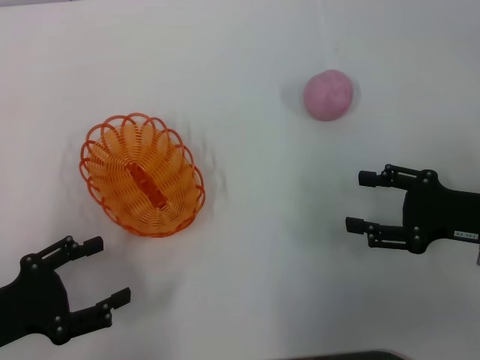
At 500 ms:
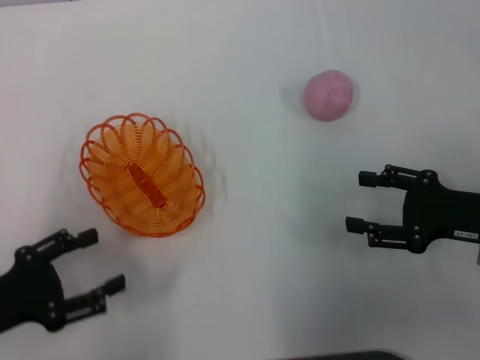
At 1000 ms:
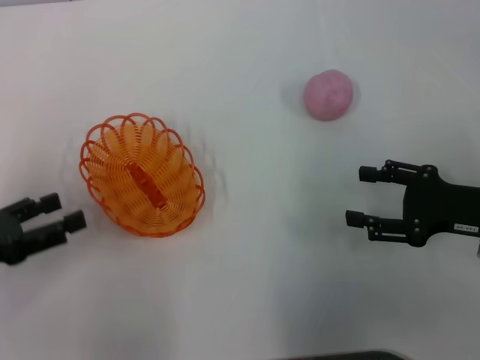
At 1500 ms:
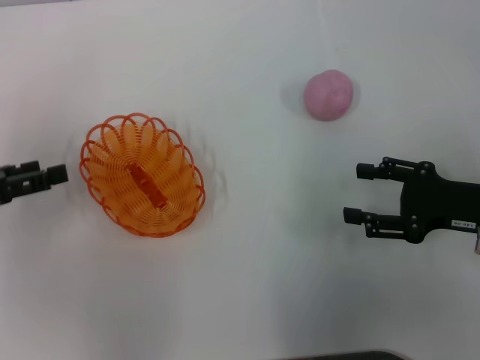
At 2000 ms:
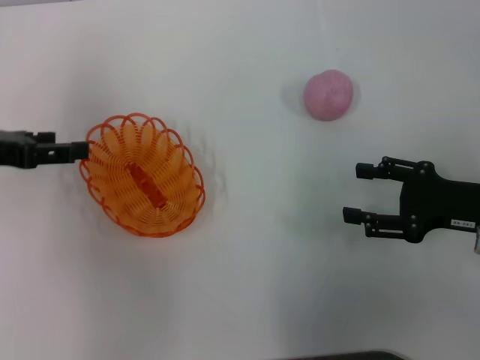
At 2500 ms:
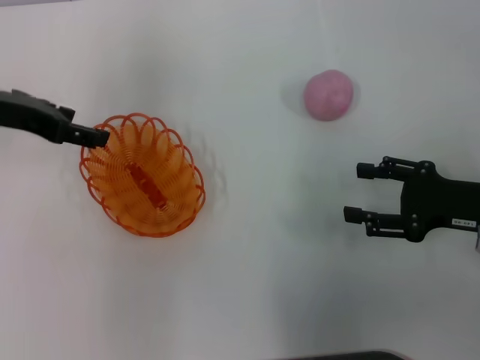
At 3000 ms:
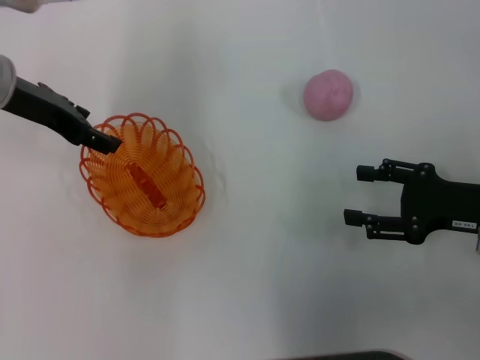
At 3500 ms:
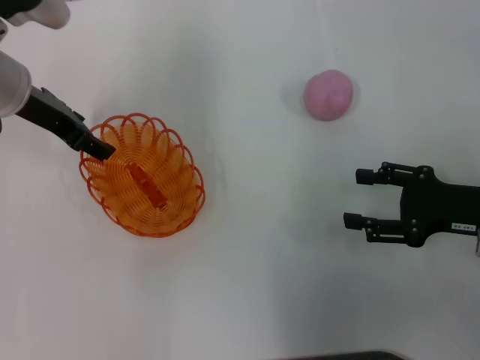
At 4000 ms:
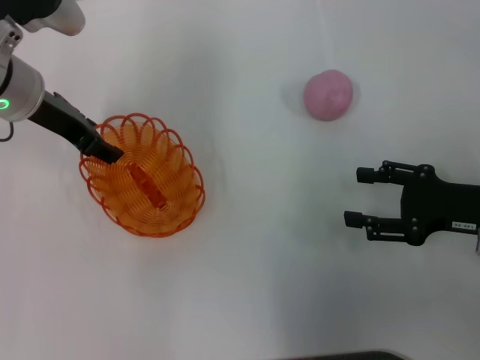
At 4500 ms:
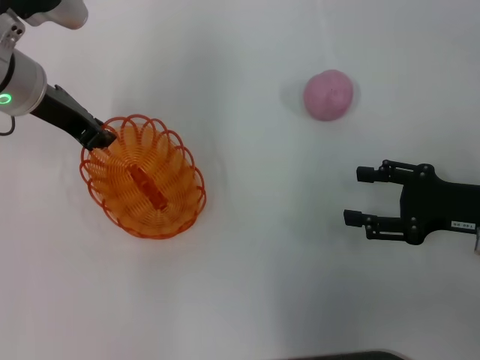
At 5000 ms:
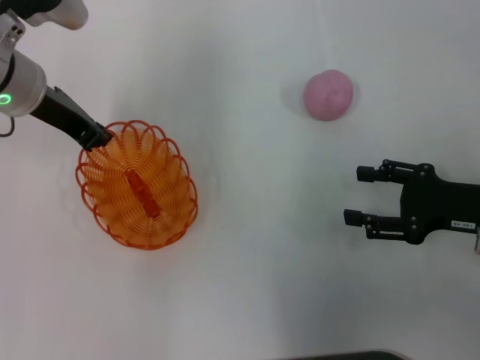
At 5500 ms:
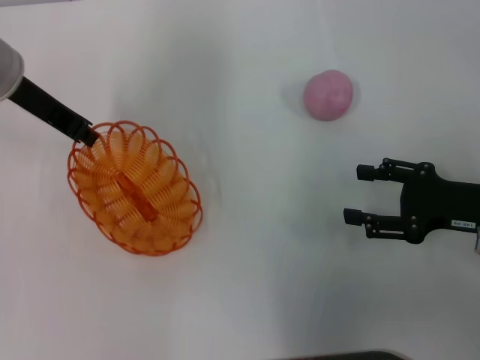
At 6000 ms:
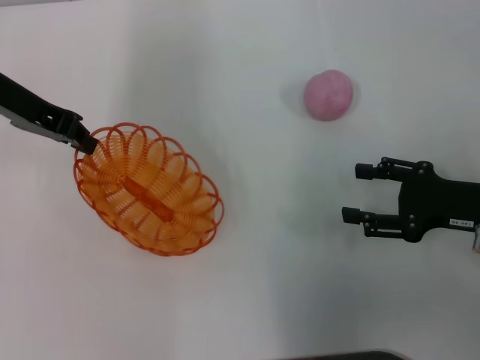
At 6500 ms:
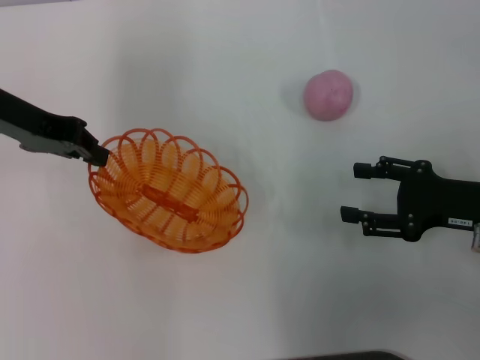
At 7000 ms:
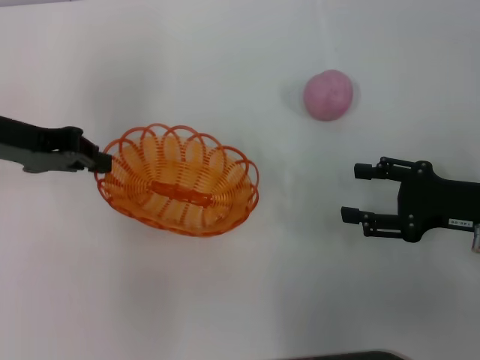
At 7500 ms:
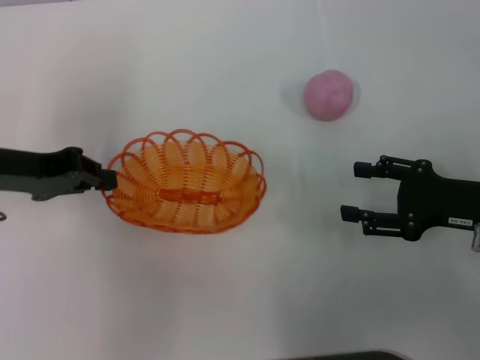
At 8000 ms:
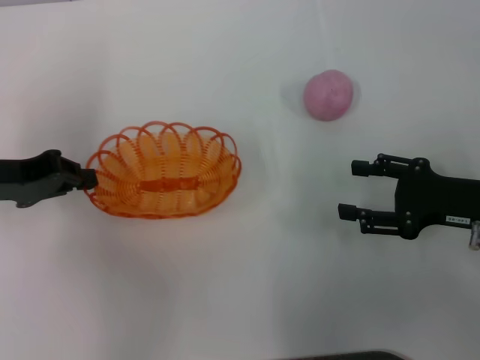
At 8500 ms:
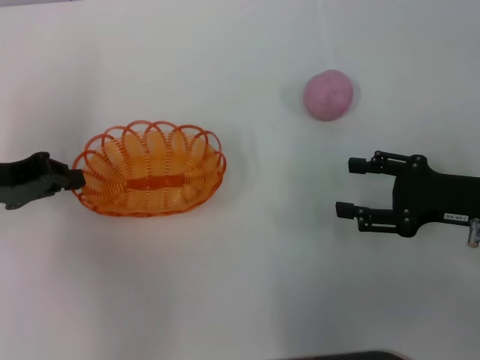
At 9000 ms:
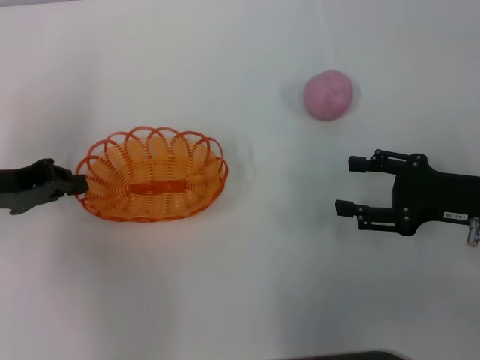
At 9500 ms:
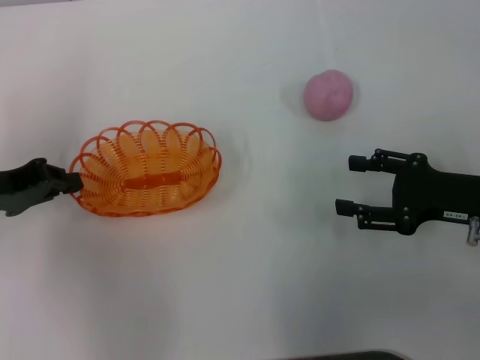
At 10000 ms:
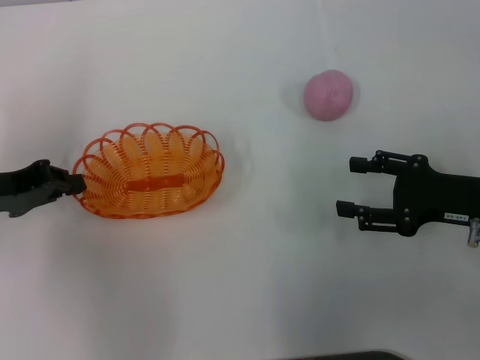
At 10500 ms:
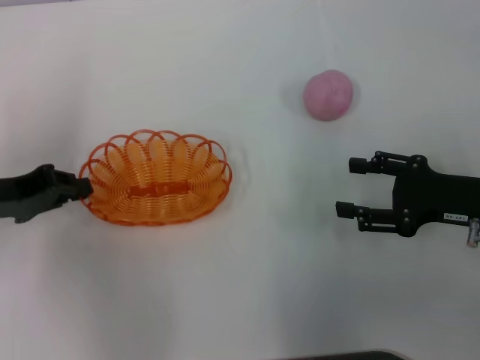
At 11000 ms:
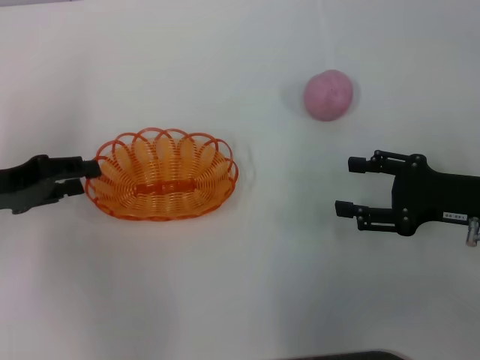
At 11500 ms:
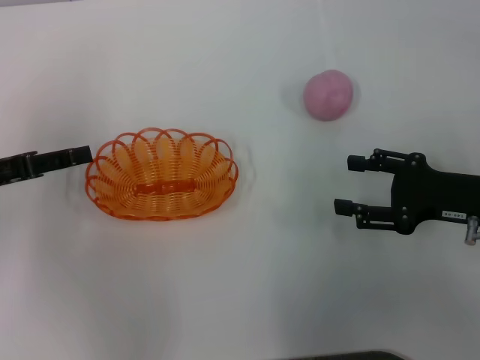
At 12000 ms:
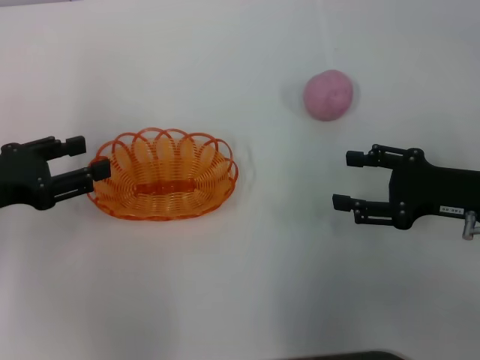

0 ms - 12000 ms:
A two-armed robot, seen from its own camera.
Step, 0 ms - 5500 ms: Pick up the basket with the left gripper.
Step, 6000 ms - 11000 ms: Place the basket in the center of view with the left gripper.
0 ms - 2000 ms: The left gripper is displaced forward and upward by roughly 20 cm.
2000 ms - 4000 ms: The left gripper is displaced to the right and forward by some 15 cm.
4000 ms - 6000 ms: The left gripper shifts by roughly 5 cm, and closes up.
6000 ms - 8000 ms: The left gripper goes roughly 10 cm backward, downward and to the left.
8000 ms - 10000 ms: There are only small adjustments of the grippers.
10000 ms - 12000 ms: The left gripper opens up.

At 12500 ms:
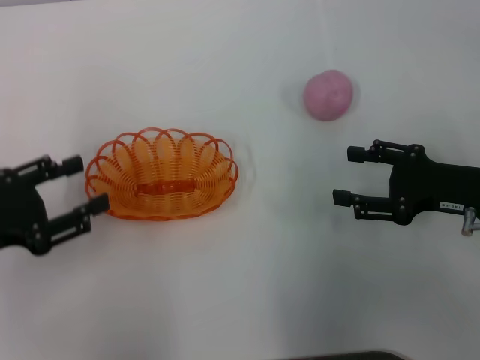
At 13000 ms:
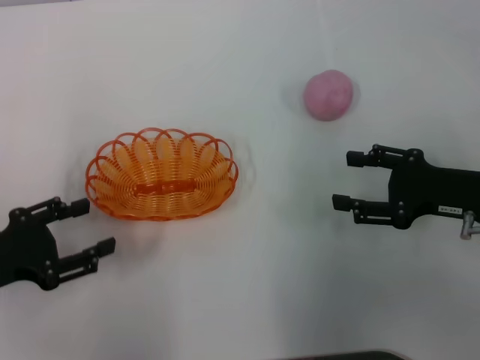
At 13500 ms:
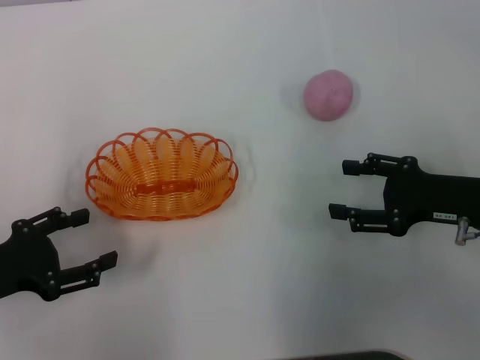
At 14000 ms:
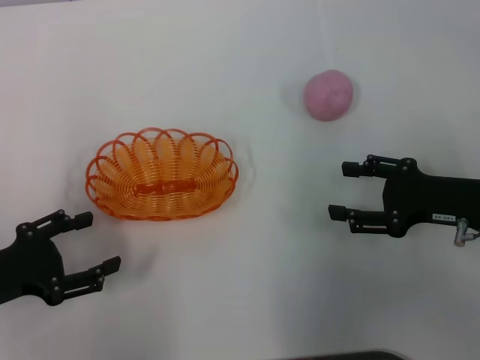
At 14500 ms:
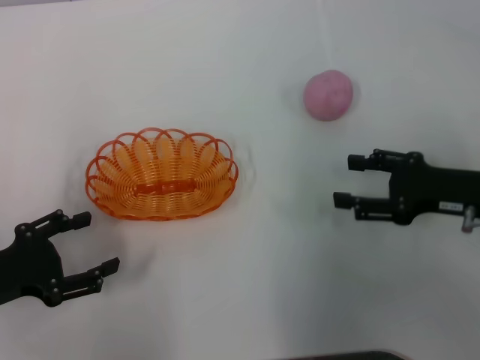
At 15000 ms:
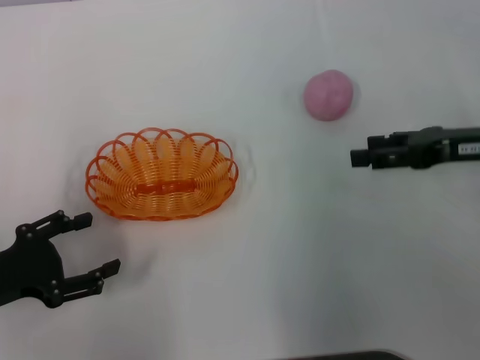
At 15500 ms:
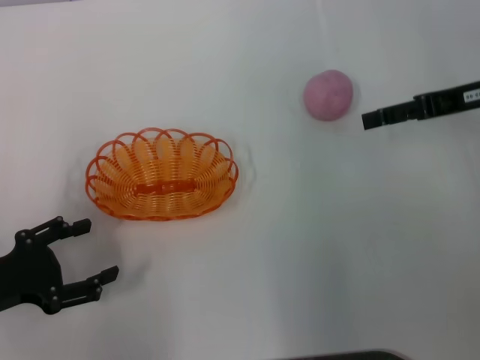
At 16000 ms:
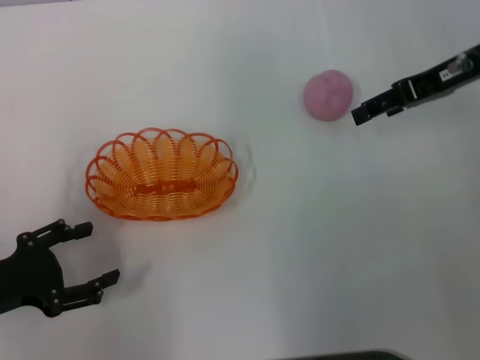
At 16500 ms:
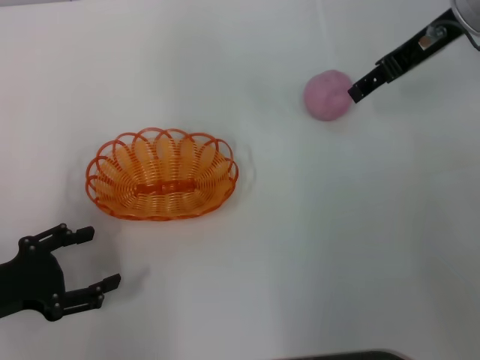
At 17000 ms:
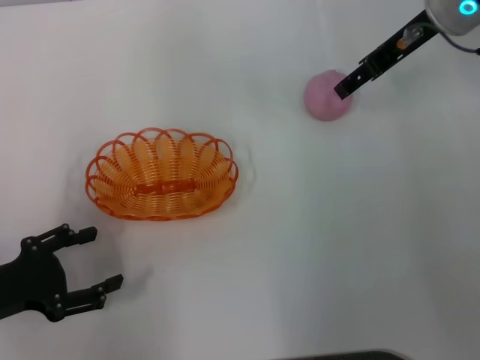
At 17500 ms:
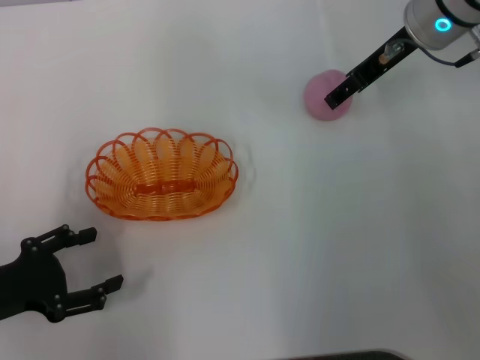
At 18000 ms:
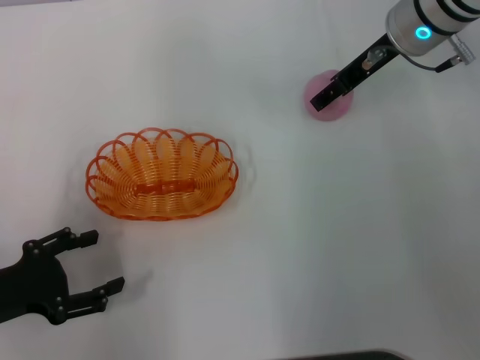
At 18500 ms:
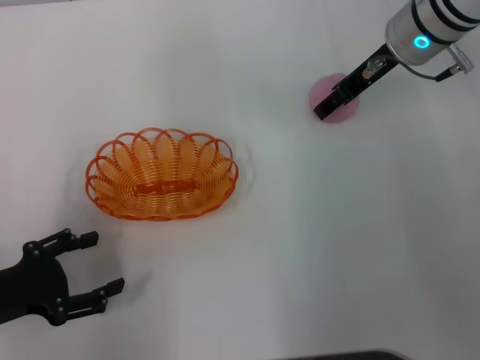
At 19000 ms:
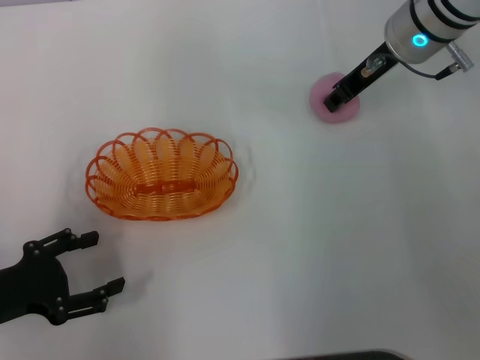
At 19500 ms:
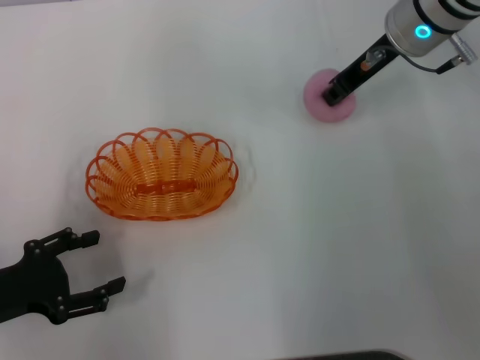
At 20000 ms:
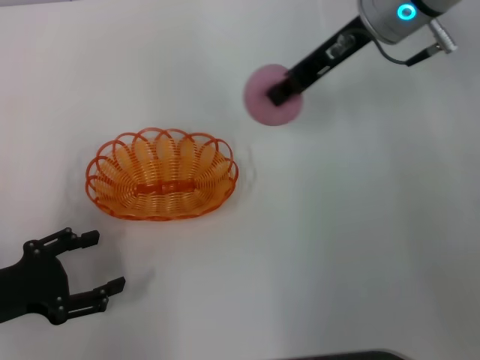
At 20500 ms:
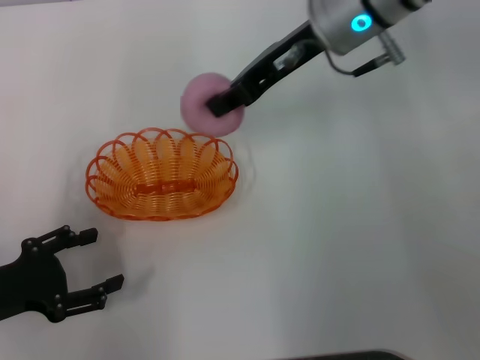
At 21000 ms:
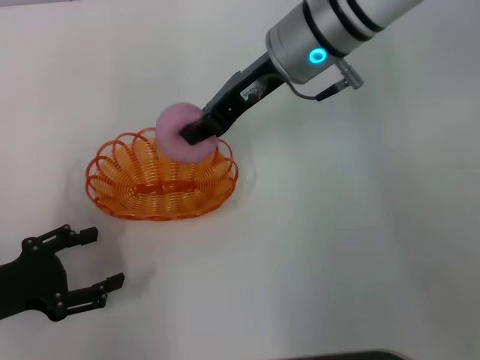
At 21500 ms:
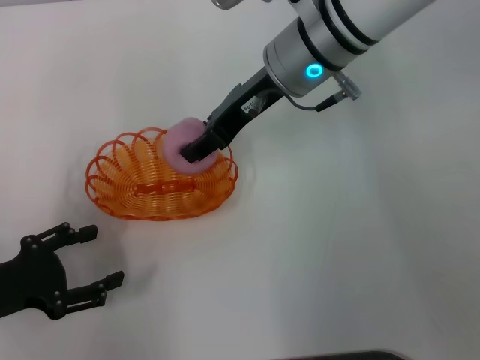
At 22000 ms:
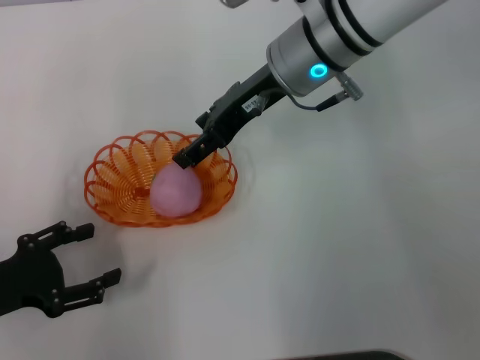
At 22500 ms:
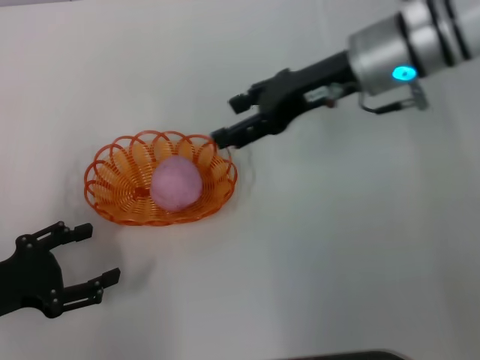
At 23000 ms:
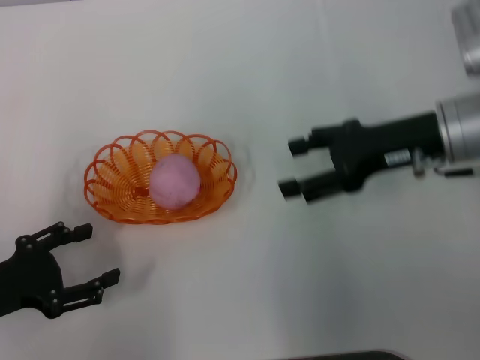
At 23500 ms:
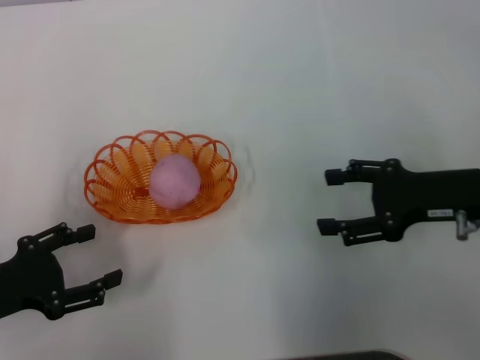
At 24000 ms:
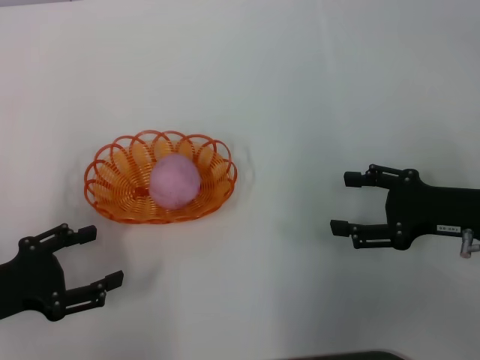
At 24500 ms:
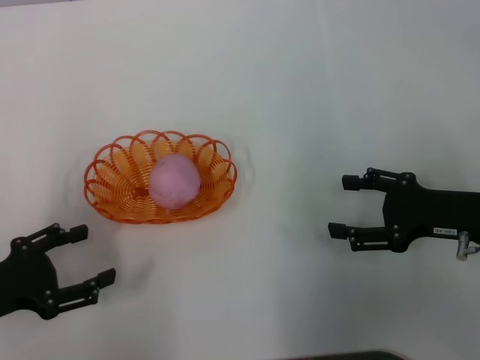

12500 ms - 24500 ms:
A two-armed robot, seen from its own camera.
Step, 12500 ms - 19500 ms: Pick up the peach with the right gripper.
Step, 20000 ms - 22500 ms: Place the peach into the basket with the right gripper.
12500 ms - 14500 ms: There are only small adjustments of the grippers.
14500 ms - 16500 ms: The right gripper shifts about 20 cm upward, forward and to the left.
16500 ms - 18500 ms: The right gripper goes roughly 5 cm downward.
18500 ms - 20500 ms: The right gripper is displaced to the left by about 5 cm, and closes its fingers.
20500 ms - 22500 ms: The right gripper moves approximately 5 cm, and opens up.
22500 ms - 24500 ms: The right gripper travels backward, to the right and downward by about 20 cm.

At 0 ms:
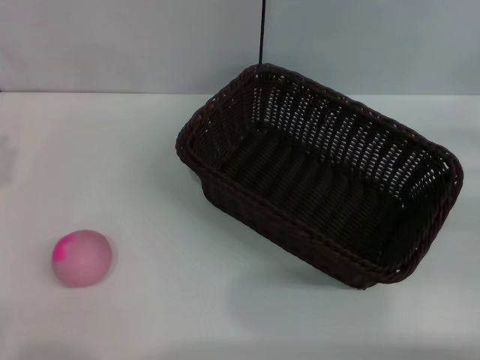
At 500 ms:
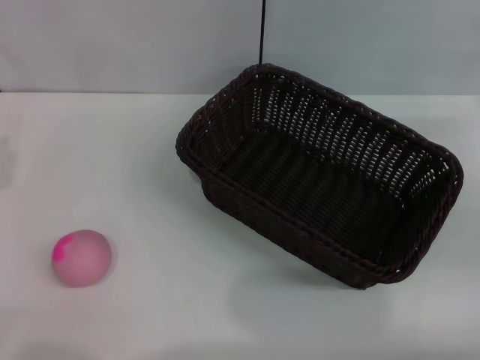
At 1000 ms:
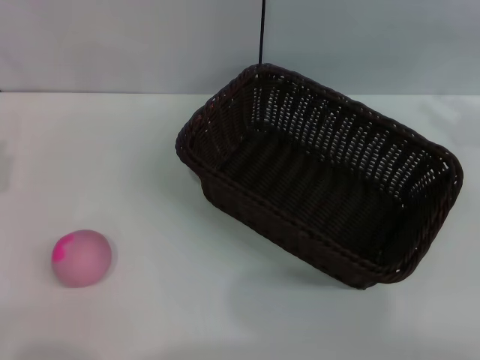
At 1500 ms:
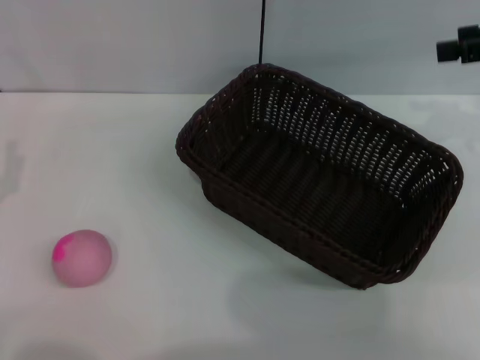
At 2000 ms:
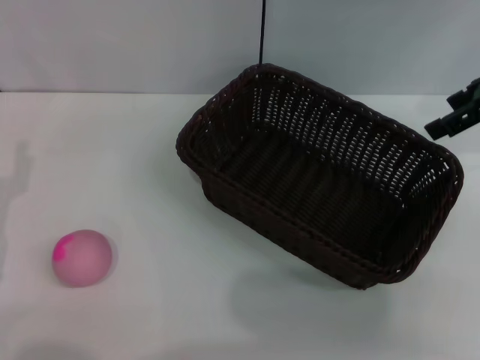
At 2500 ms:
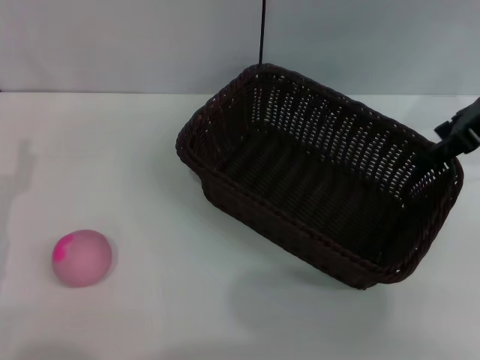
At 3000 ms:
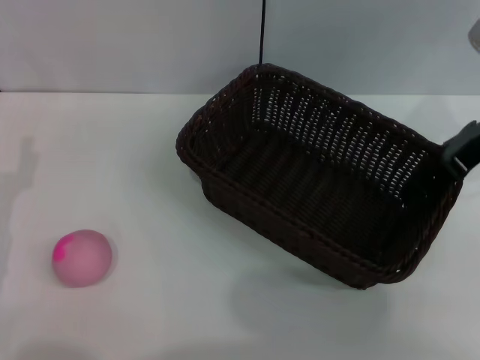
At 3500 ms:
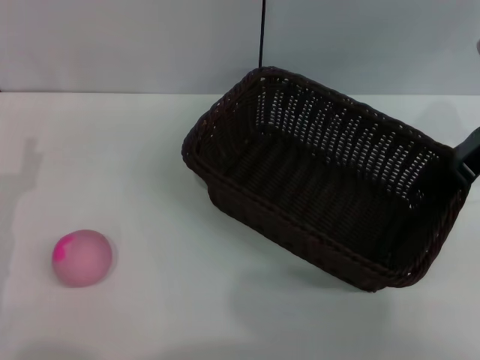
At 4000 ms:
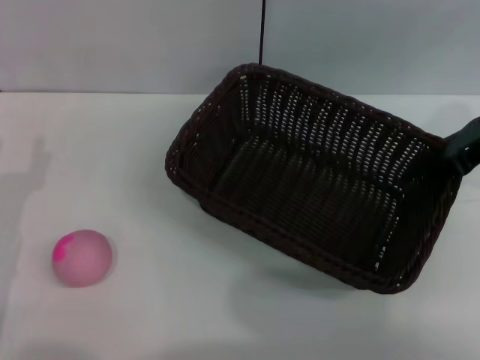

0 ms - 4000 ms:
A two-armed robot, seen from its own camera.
0 ms - 2000 ms: The right gripper moves upward, forward and to the left, about 20 cm, and opens up.
2000 ms - 4000 ms: The right gripper heads downward, covering approximately 5 cm, and closes up.
